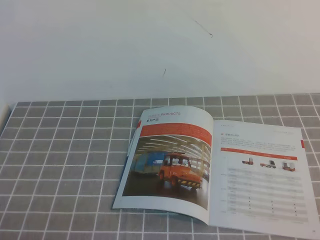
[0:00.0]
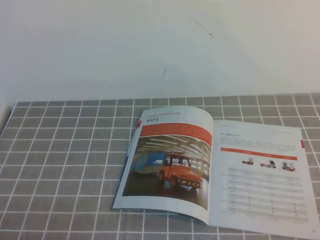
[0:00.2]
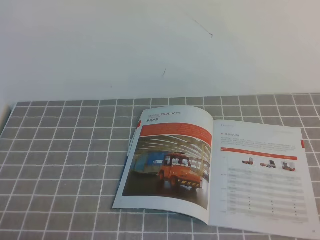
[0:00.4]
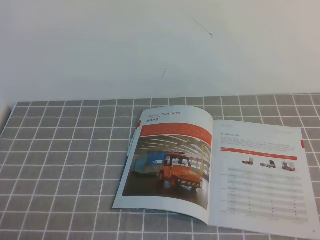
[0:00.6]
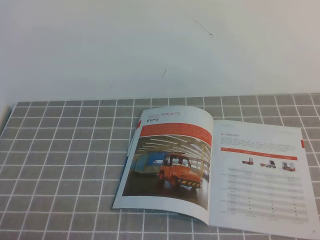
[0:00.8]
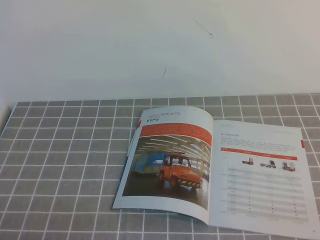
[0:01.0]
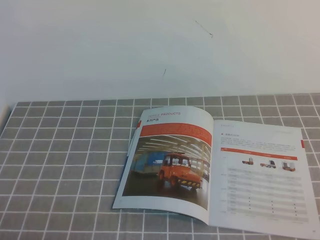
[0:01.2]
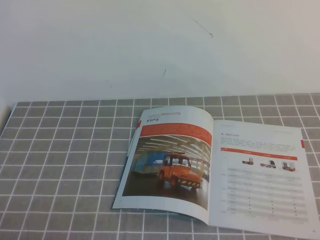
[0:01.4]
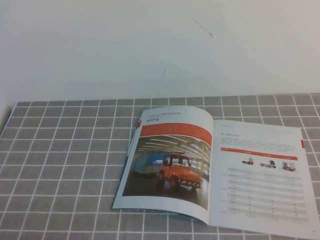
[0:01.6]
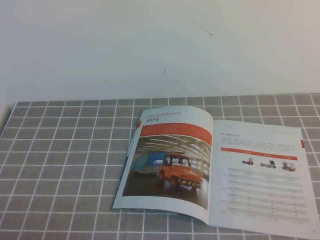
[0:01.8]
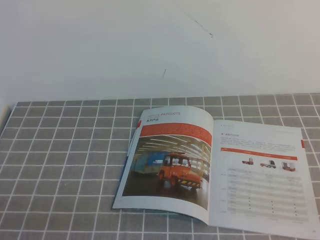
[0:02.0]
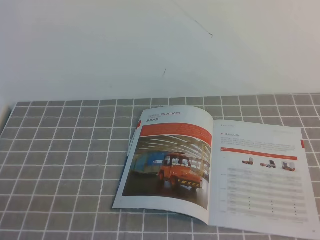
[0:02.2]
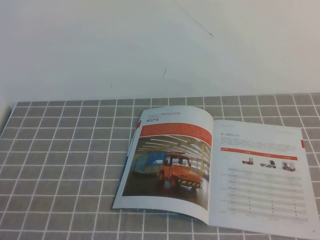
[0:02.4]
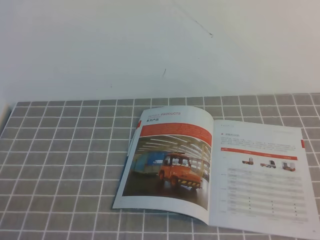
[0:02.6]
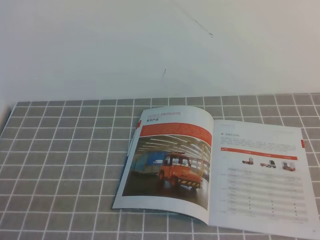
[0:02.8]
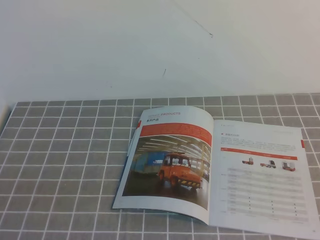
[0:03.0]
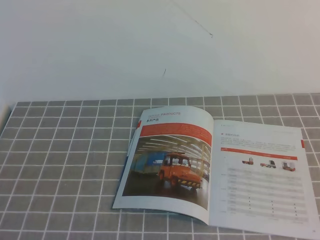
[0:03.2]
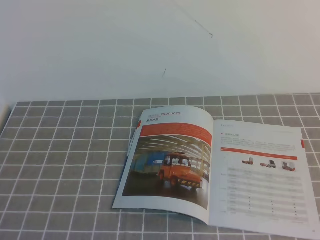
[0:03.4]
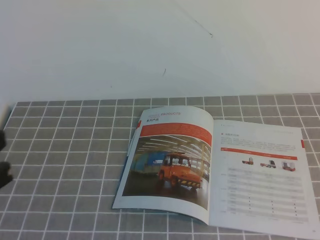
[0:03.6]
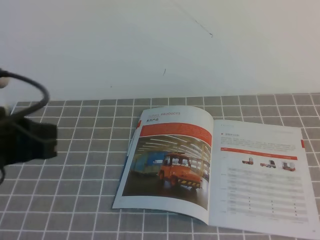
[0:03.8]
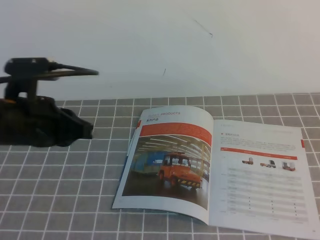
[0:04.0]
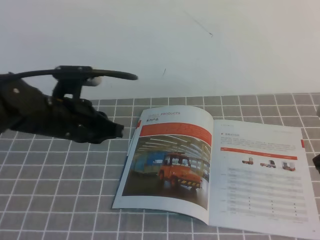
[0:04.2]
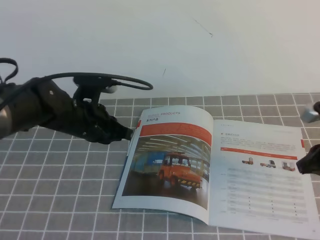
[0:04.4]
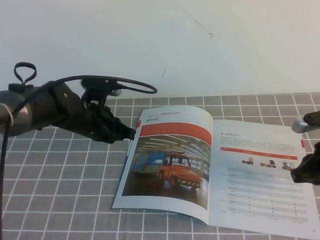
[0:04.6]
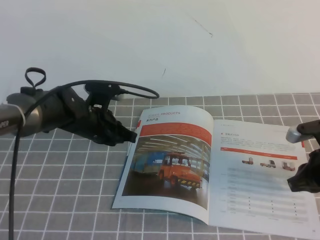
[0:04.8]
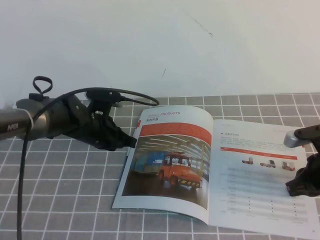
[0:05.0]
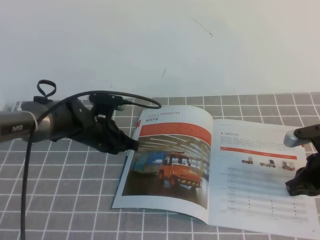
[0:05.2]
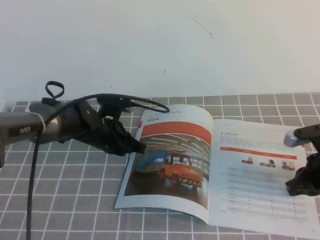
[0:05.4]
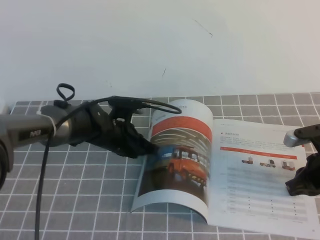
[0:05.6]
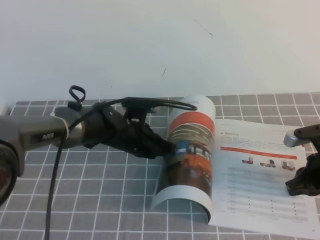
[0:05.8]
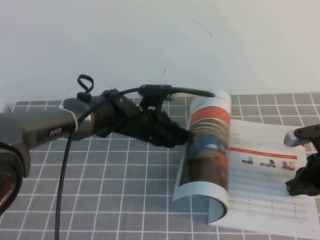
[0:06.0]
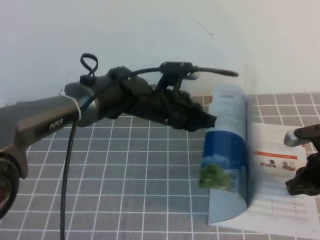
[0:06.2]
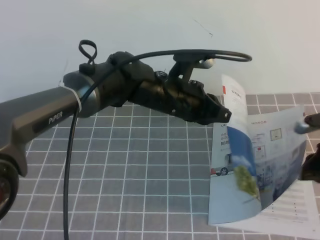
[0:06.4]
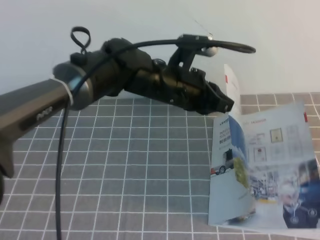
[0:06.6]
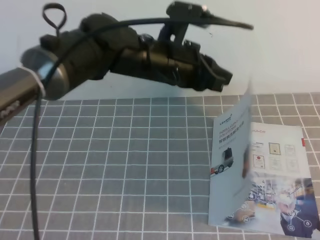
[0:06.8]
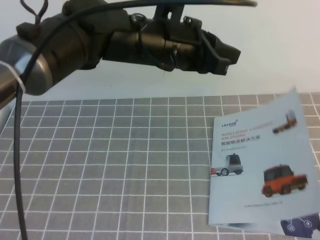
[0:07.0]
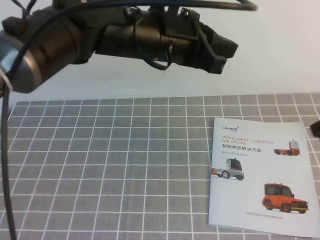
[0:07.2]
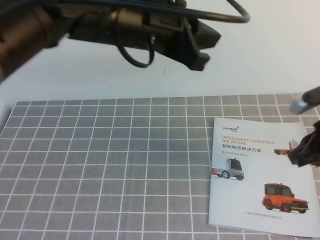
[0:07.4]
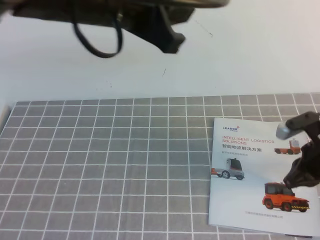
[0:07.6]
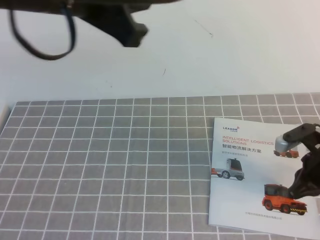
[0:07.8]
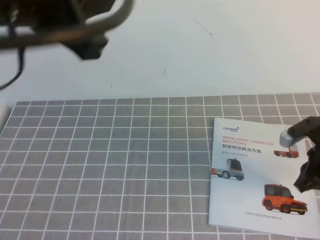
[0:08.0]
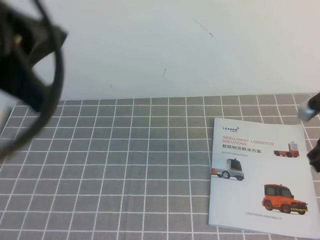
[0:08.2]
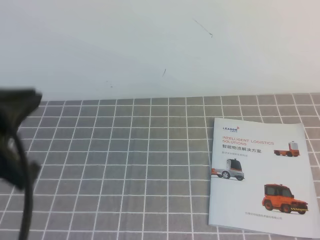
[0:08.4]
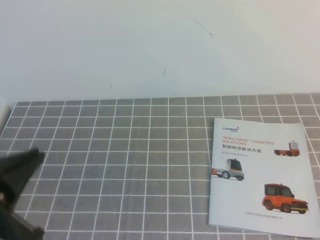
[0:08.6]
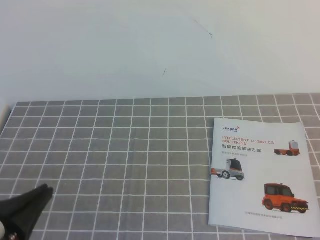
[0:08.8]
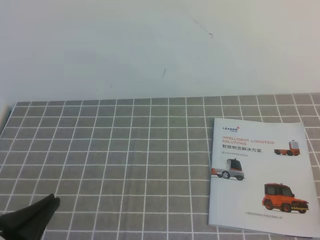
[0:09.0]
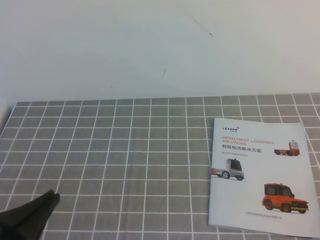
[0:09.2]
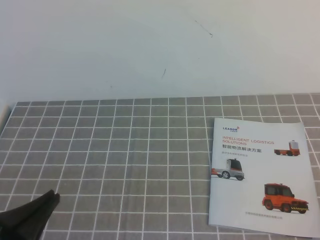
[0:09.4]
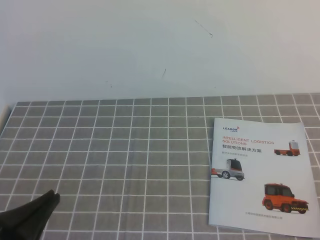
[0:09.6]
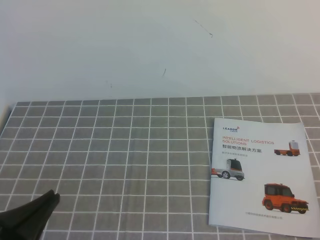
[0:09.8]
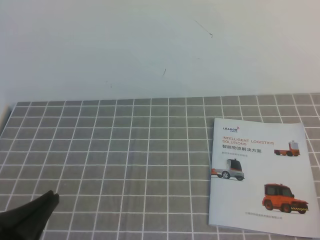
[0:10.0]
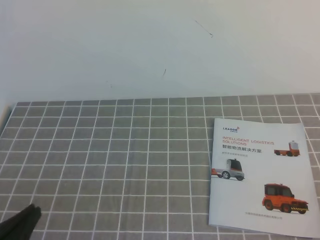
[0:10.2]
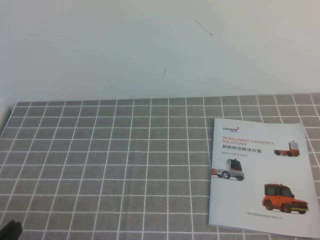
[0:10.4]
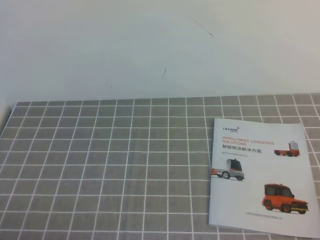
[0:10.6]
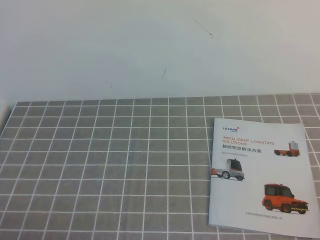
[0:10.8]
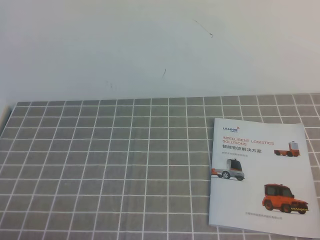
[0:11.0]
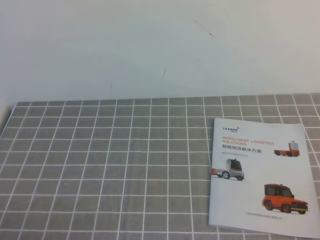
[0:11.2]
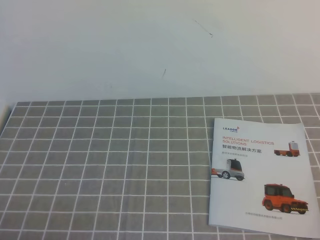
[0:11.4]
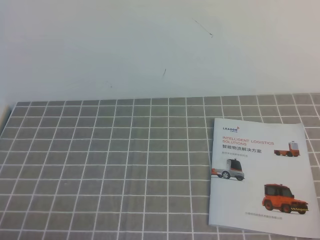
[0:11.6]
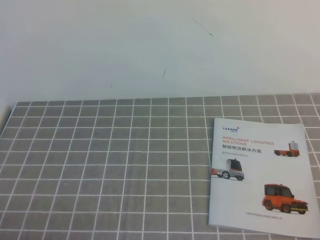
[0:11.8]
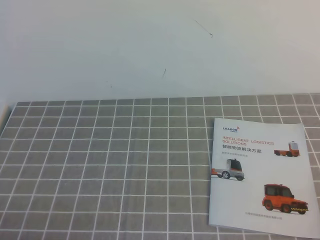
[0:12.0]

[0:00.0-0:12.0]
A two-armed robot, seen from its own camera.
Task of the whole recording: on the grey tablecloth, hold the book with one hand and close it with the other.
0:00.0 to 0:01.6: Both grippers stay put.
0:03.0 to 0:04.4: The two grippers go roughly 30 cm forward.
0:04.4 to 0:06.0: The right gripper travels downward by about 10 cm, while the left gripper goes roughly 10 cm to the right and downward.
0:06.0 to 0:07.6: The left gripper travels upward and backward by some 30 cm, while the right gripper moves some 15 cm upward and comes back.
0:07.6 to 0:09.0: The right gripper travels backward and upward by roughly 25 cm. Meanwhile the left gripper moves downward, backward and to the left, some 30 cm.
0:09.0 to 0:10.4: The left gripper ends up approximately 5 cm from where it was.

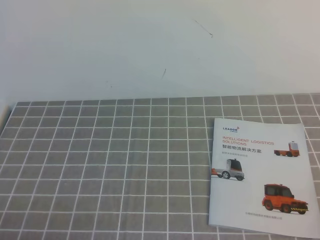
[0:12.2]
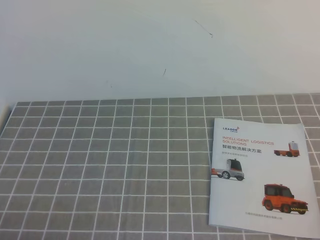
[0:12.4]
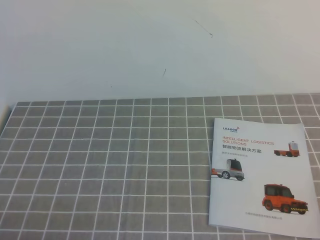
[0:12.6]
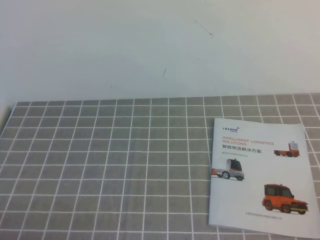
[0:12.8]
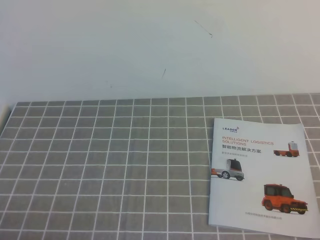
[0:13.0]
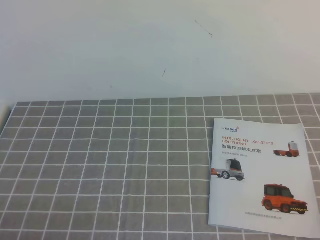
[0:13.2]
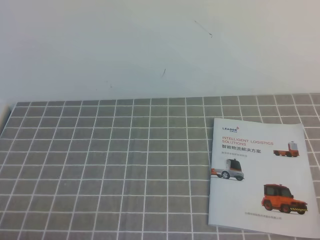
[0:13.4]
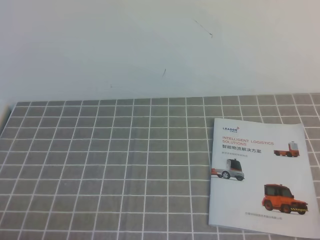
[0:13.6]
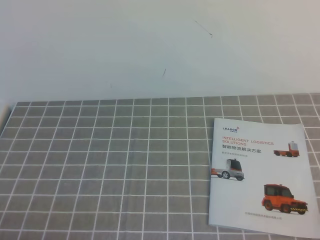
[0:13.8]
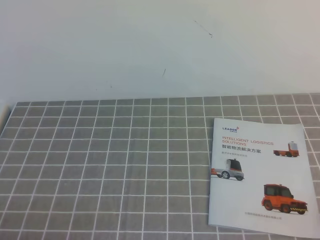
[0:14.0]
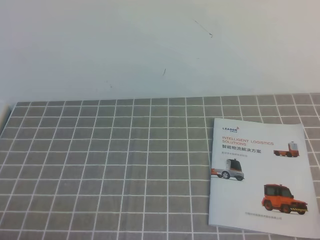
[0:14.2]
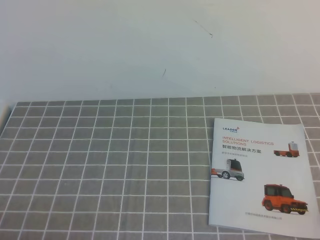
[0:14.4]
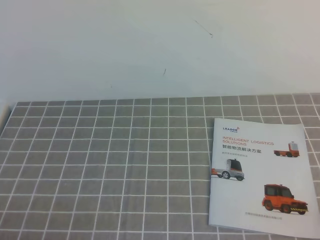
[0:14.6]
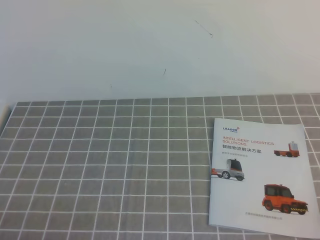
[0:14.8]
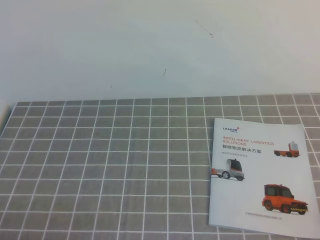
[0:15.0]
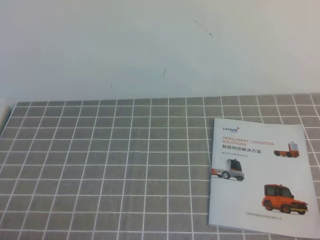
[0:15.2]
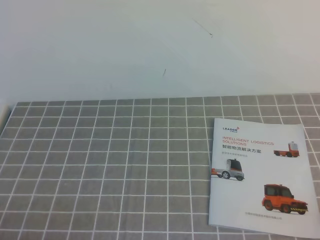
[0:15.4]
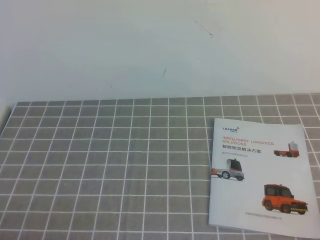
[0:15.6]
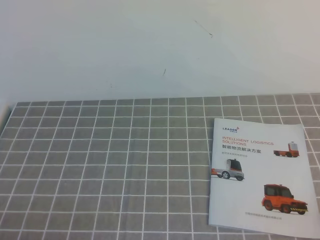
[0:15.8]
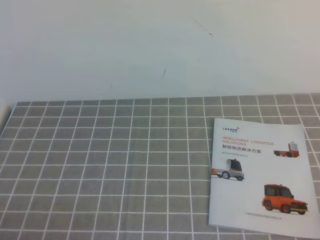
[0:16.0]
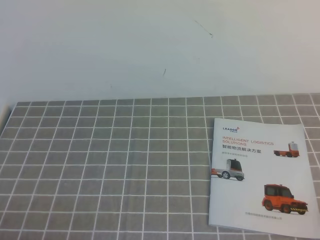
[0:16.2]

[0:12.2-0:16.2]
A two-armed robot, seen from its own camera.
Task of the whole recording: on the grey tablecloth, hold the book with one hand and close it with the other.
0:14.8 to 0:16.2: Both grippers stay put.

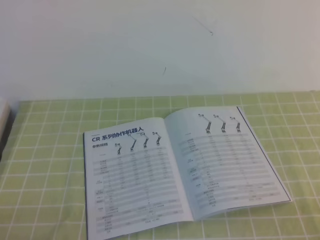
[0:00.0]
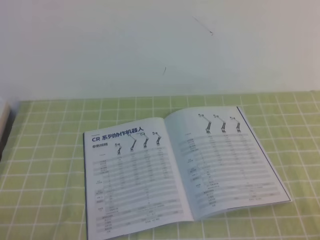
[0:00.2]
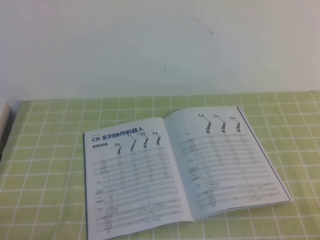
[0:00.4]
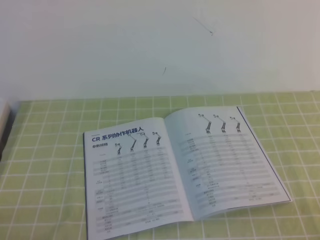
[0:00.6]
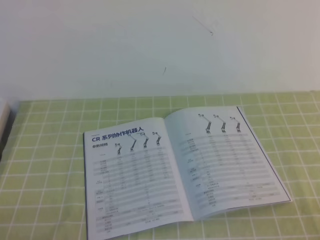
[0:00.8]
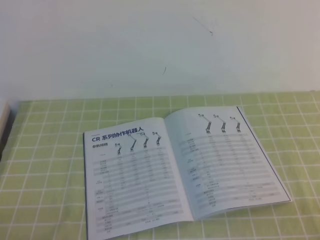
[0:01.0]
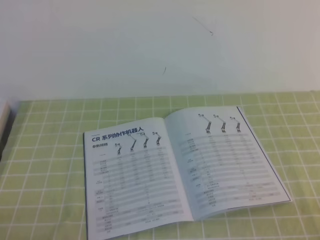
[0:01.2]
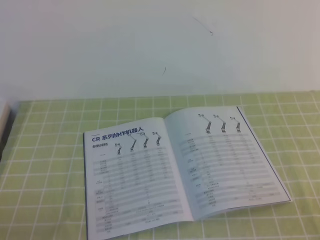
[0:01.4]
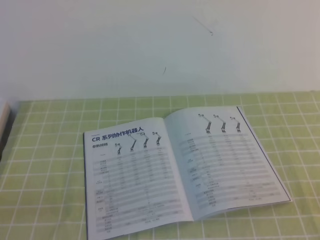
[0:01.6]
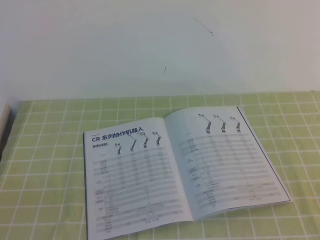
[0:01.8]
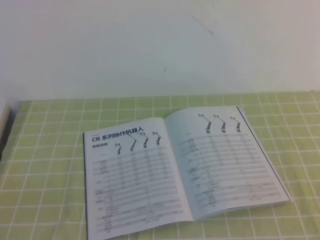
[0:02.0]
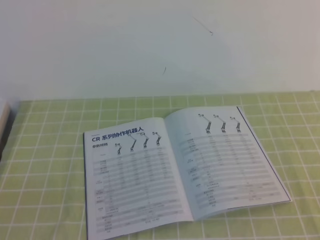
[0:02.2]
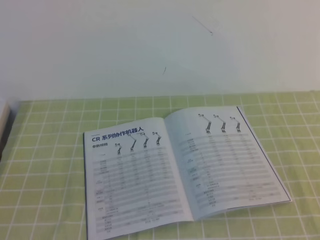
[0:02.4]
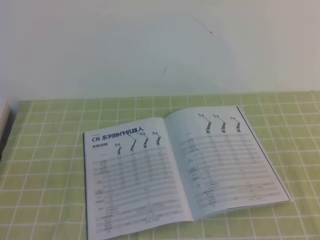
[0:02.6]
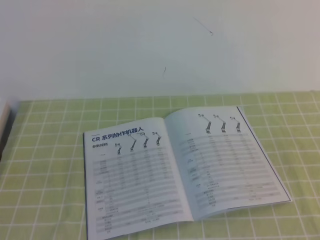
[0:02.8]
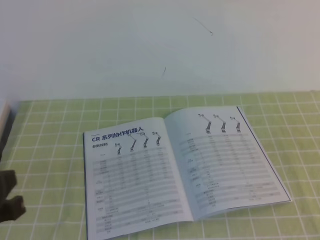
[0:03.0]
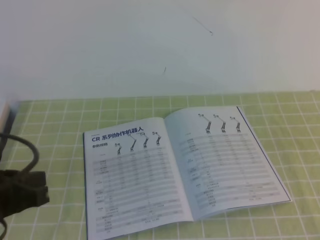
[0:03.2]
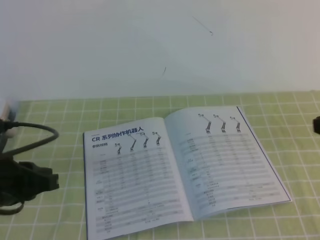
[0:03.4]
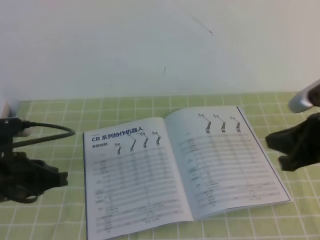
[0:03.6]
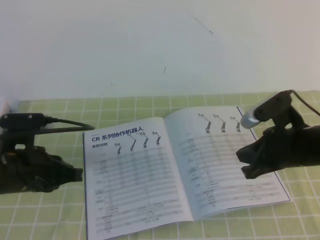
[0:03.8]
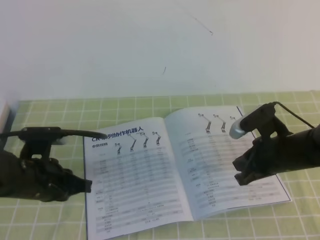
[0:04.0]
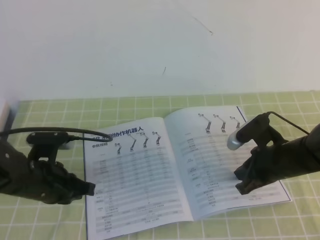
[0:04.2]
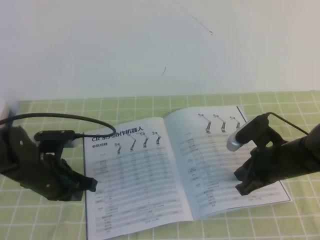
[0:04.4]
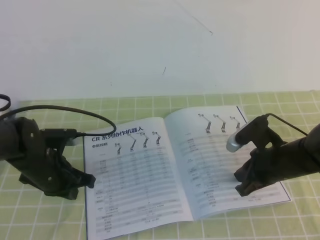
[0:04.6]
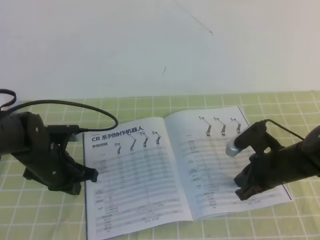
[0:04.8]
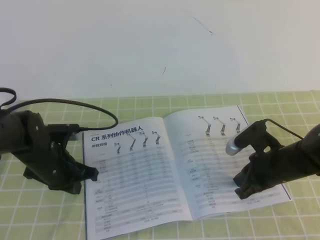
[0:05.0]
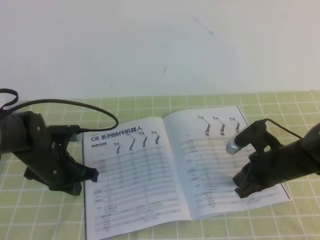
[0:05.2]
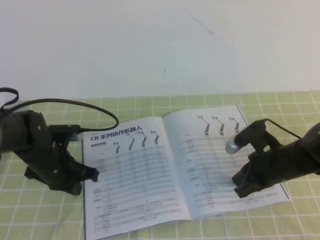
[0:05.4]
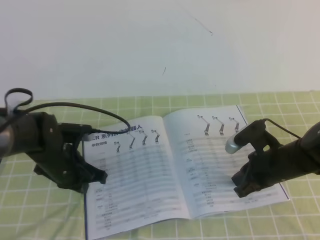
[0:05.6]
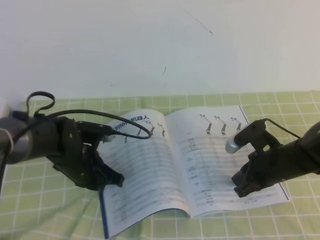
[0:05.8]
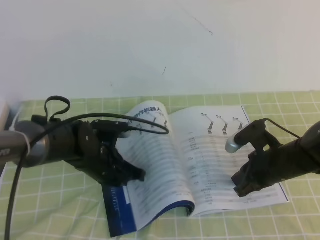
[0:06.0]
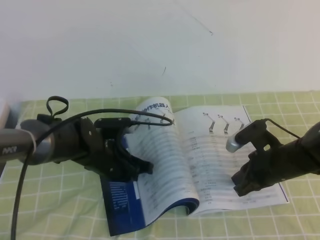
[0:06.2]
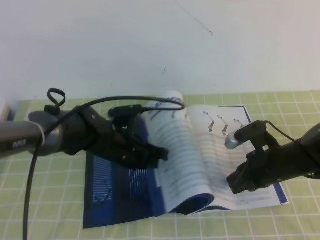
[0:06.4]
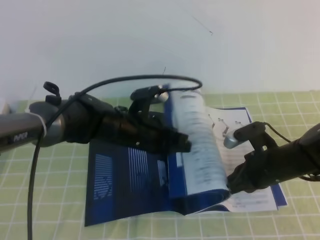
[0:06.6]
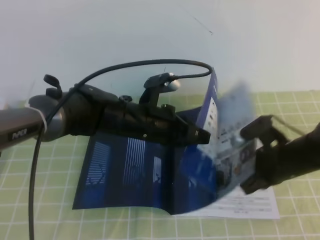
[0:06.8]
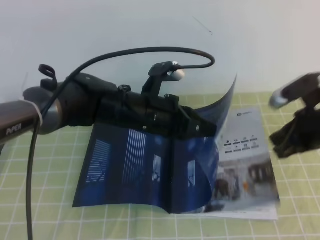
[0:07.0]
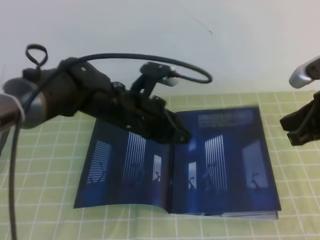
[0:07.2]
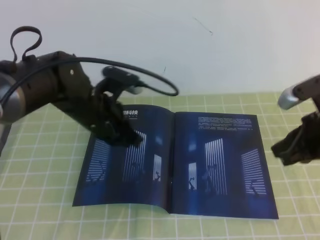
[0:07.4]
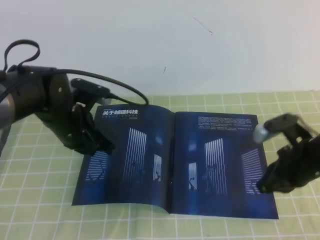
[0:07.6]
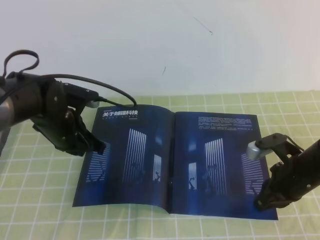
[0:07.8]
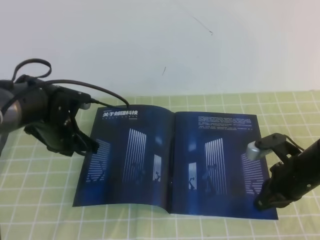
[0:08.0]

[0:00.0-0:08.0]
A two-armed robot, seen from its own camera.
Task of the whole recording: on the green tablecloth, hold the book with one hand and close it with the other.
0:01.6 to 0:03.2: The left gripper heads forward and upward, covering about 10 cm.
0:03.2 to 0:04.8: The left gripper travels forward and downward by some 20 cm; the right gripper moves downward, forward and to the left, some 30 cm.
0:04.8 to 0:06.4: The left gripper moves to the right, roughly 10 cm.
0:06.4 to 0:08.0: The right gripper reaches approximately 15 cm upward, then returns; the left gripper travels to the left by about 10 cm.
